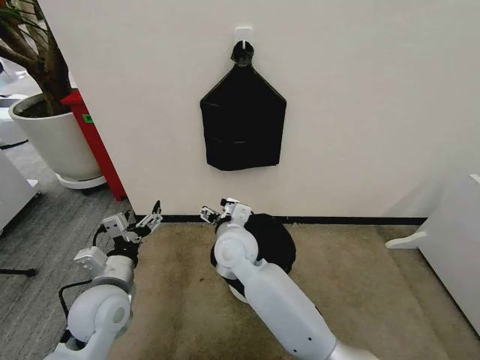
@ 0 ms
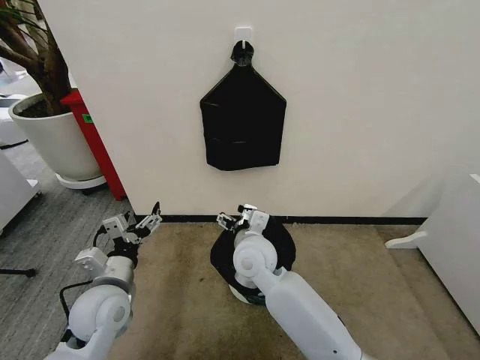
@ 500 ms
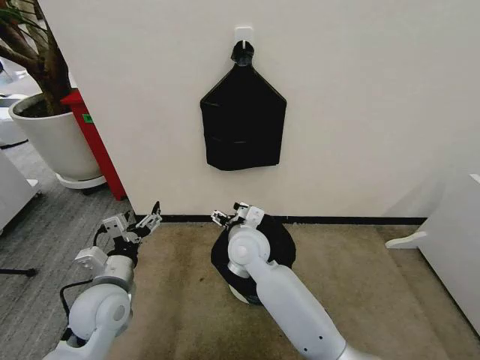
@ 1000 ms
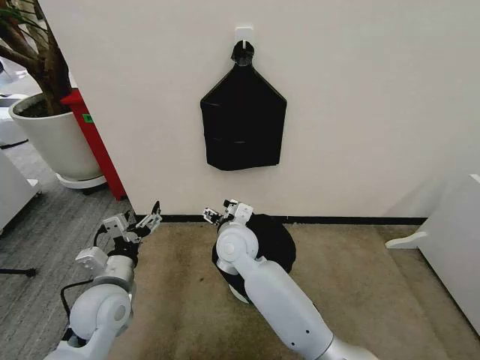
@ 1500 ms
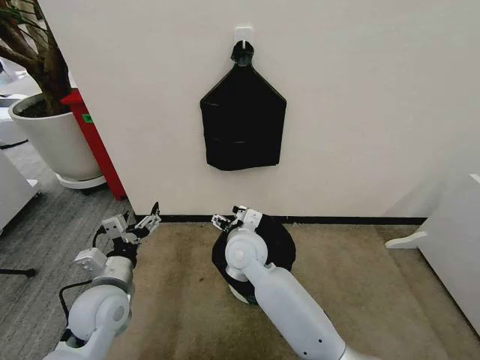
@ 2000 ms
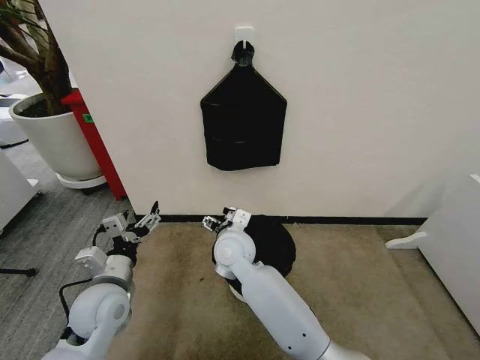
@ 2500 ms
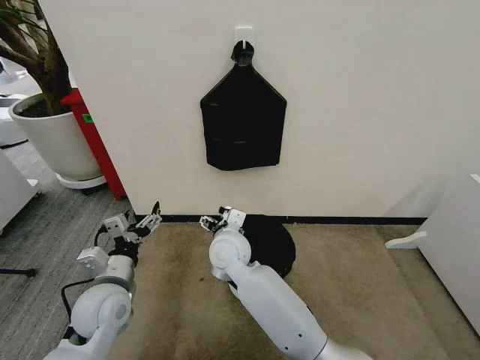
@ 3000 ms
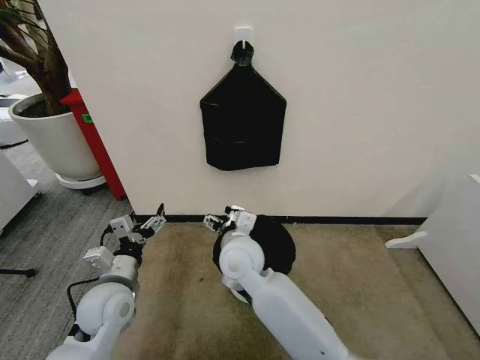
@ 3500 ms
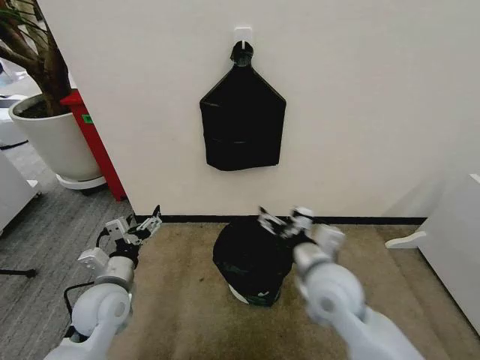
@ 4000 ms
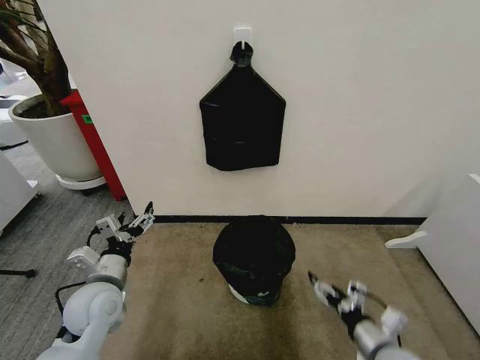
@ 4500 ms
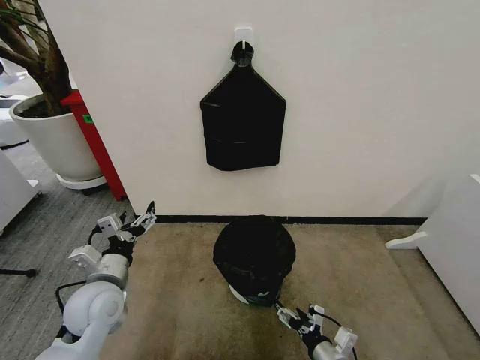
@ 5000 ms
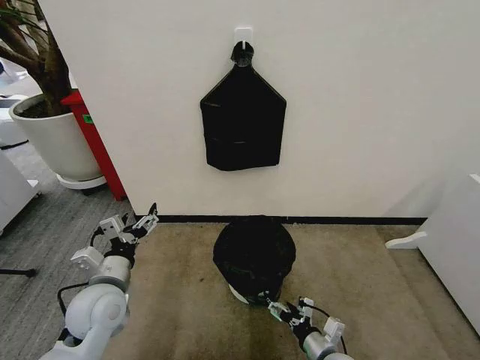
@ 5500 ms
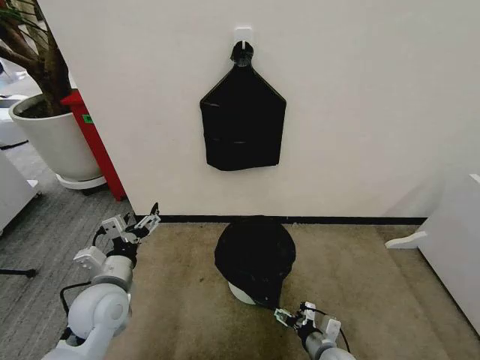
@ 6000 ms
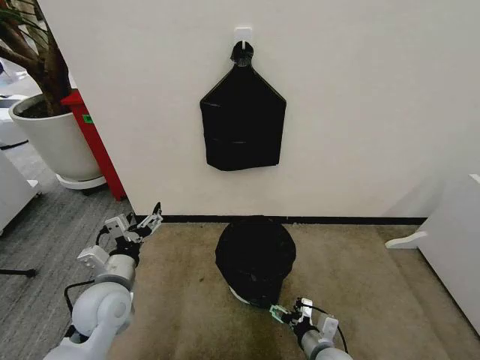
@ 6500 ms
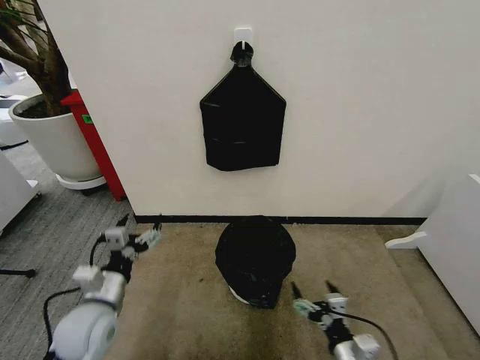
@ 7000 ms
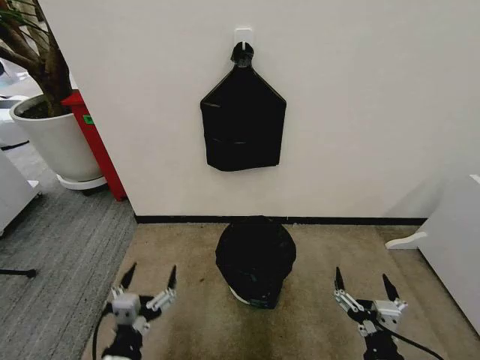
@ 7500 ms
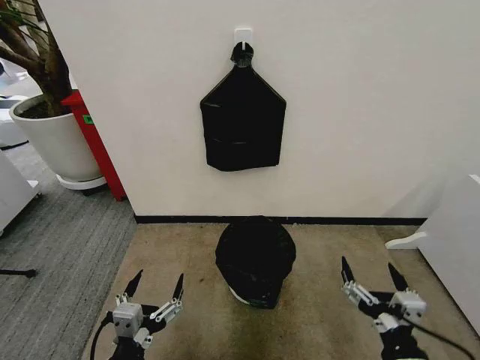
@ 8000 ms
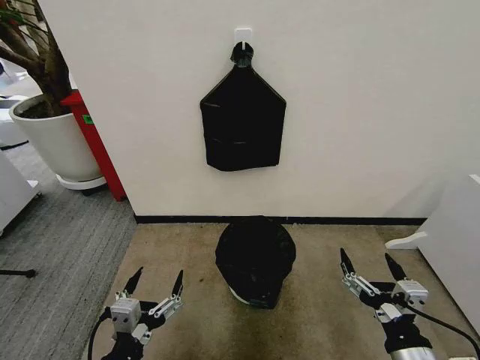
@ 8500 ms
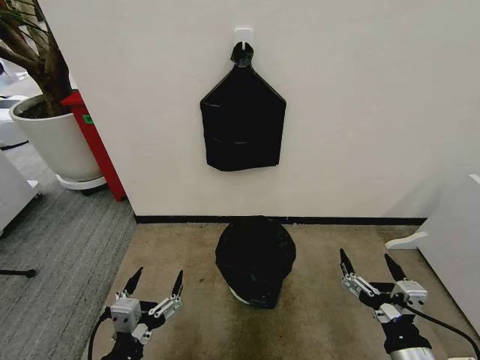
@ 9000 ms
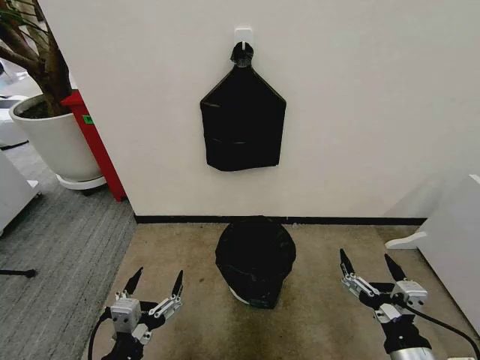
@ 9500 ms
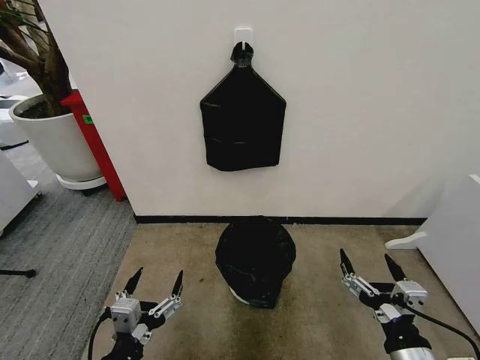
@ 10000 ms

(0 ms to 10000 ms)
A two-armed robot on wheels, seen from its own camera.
Task of the whole recording: Place the garbage bag over the trash bin.
0 ms - 2000 ms: The grippers make only small movements.
2000 ms - 4000 ms: The right gripper shifts approximately 20 cm to the right and backward.
4000 ms - 6000 ms: The right gripper heads downward, covering some 25 cm.
6000 ms - 8000 ms: The left gripper moves backward, about 20 cm. Meanwhile the right gripper travels upward and backward by some 25 cm.
8000 ms - 10000 ms: The grippers stay close to where they were, moving slightly.
